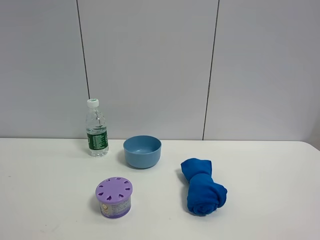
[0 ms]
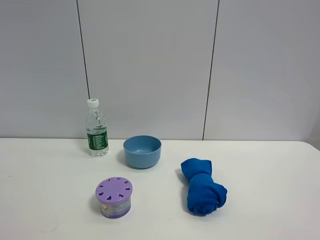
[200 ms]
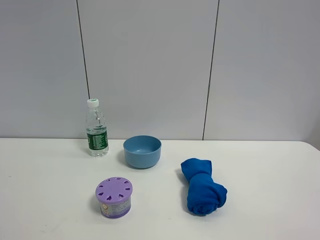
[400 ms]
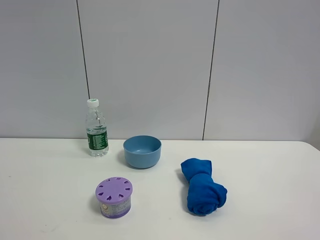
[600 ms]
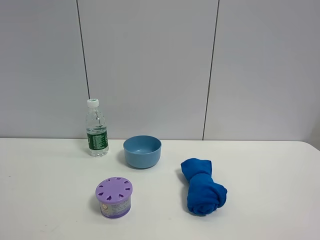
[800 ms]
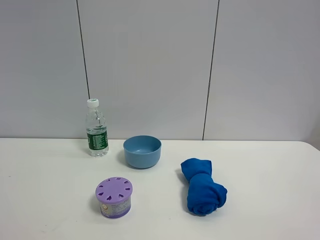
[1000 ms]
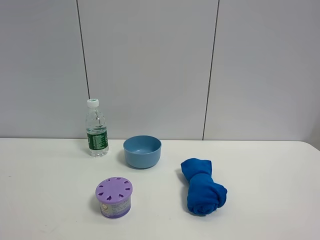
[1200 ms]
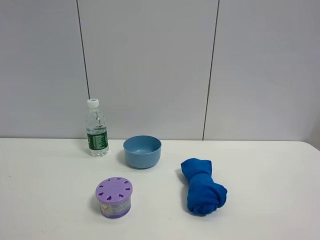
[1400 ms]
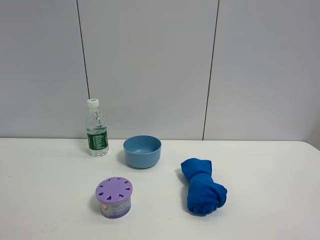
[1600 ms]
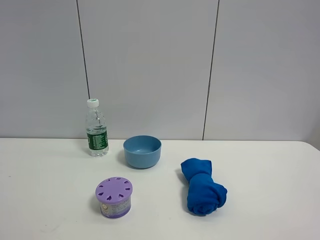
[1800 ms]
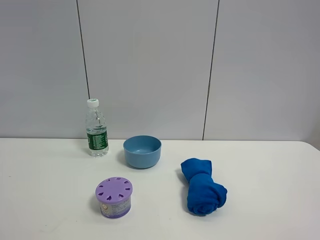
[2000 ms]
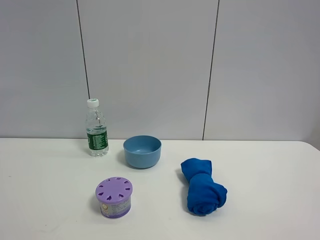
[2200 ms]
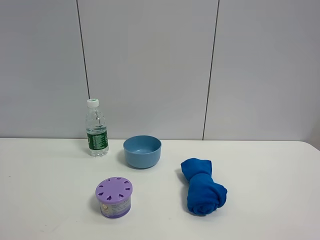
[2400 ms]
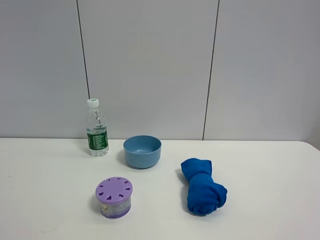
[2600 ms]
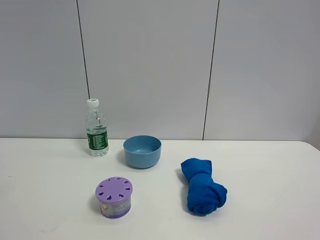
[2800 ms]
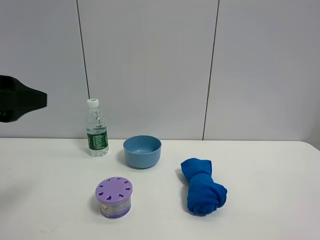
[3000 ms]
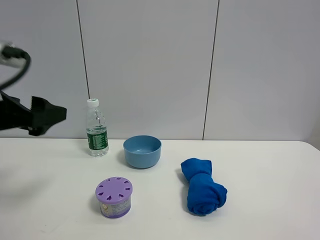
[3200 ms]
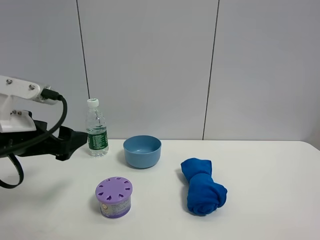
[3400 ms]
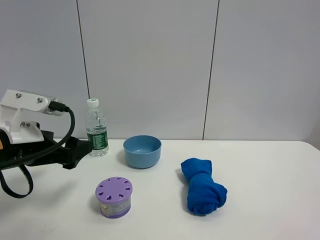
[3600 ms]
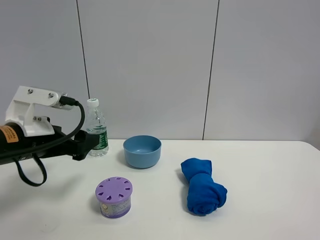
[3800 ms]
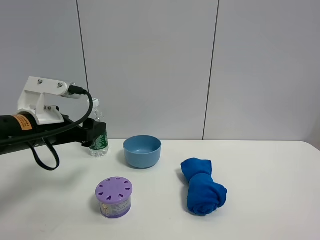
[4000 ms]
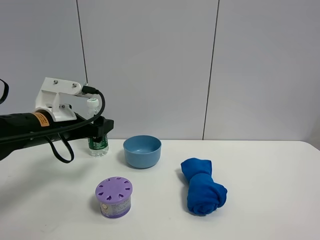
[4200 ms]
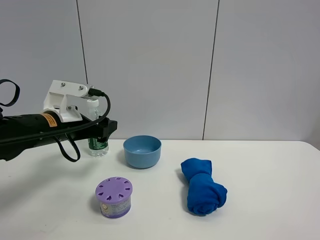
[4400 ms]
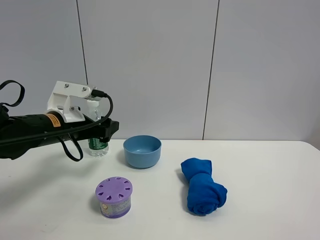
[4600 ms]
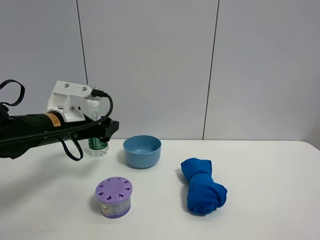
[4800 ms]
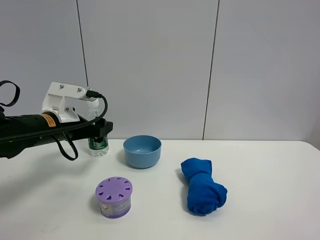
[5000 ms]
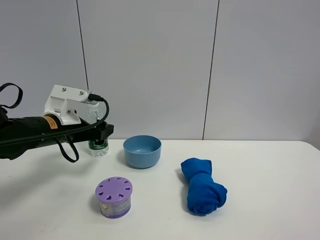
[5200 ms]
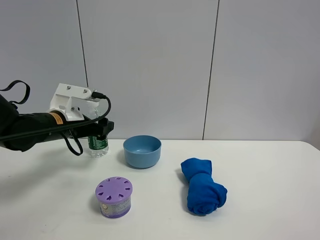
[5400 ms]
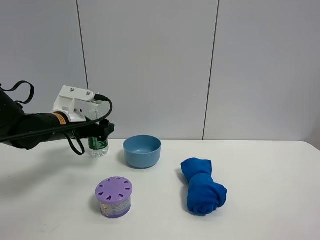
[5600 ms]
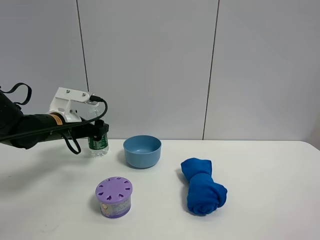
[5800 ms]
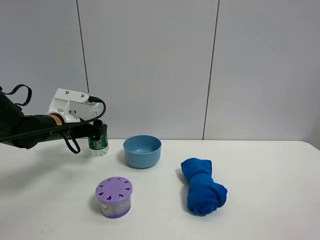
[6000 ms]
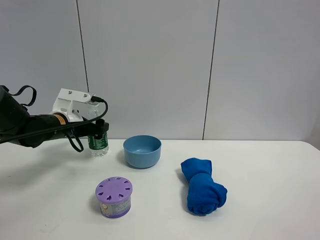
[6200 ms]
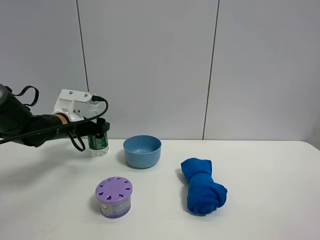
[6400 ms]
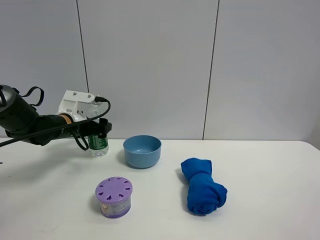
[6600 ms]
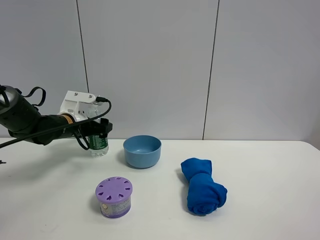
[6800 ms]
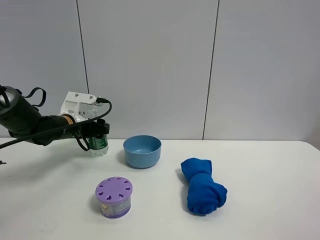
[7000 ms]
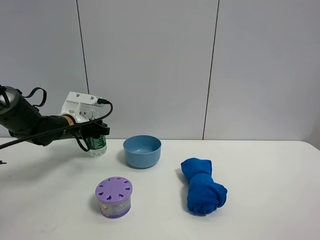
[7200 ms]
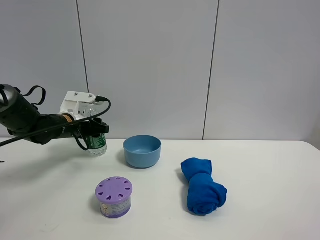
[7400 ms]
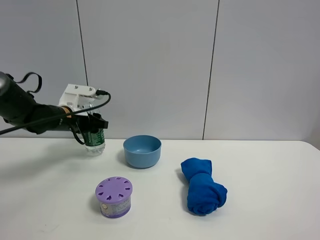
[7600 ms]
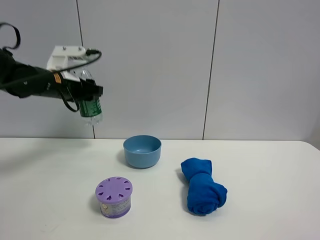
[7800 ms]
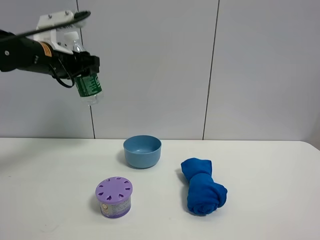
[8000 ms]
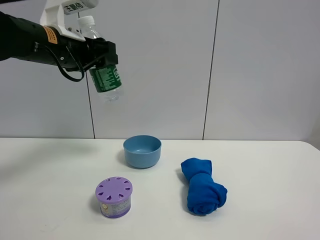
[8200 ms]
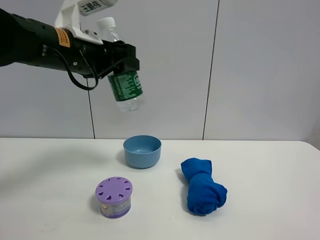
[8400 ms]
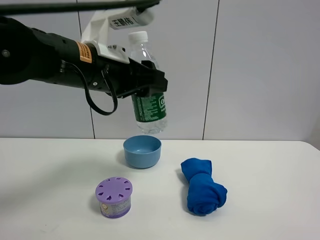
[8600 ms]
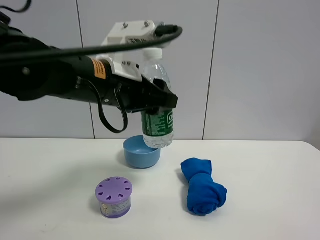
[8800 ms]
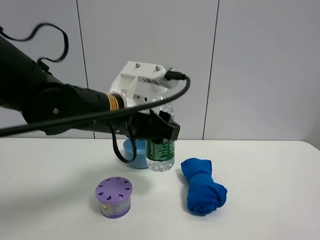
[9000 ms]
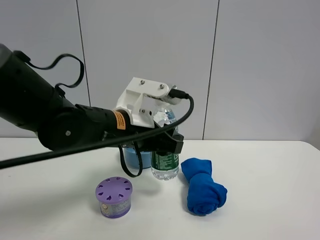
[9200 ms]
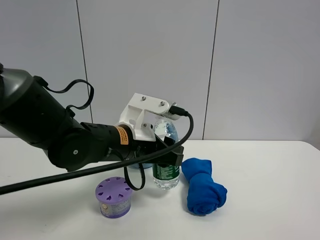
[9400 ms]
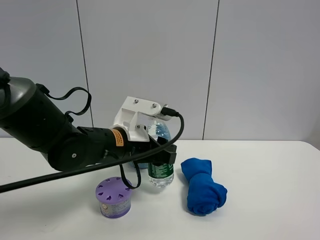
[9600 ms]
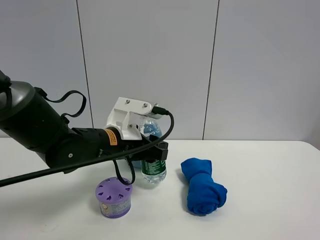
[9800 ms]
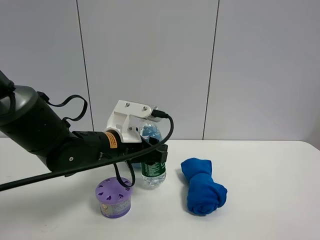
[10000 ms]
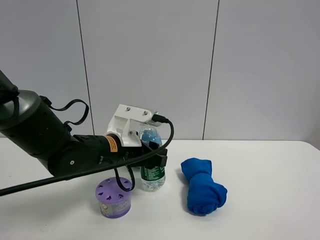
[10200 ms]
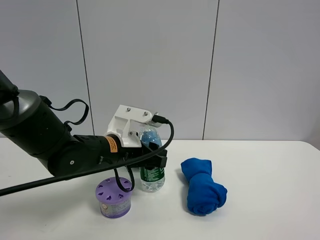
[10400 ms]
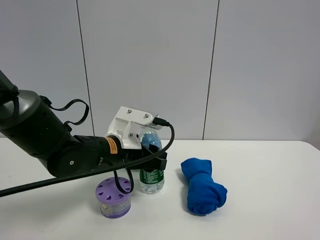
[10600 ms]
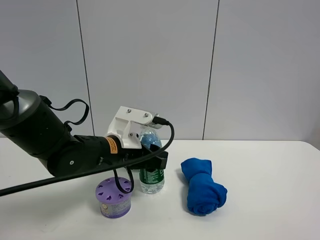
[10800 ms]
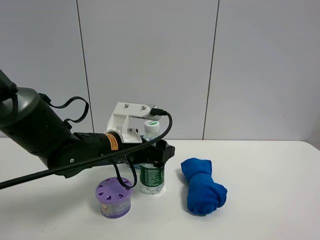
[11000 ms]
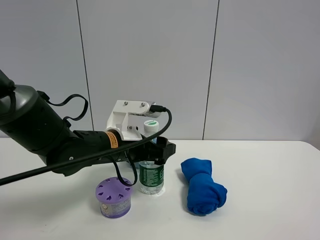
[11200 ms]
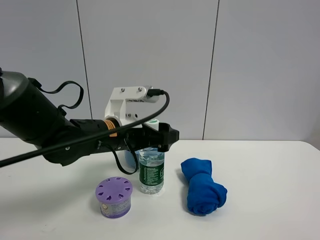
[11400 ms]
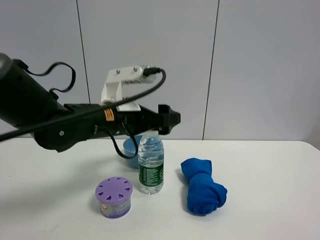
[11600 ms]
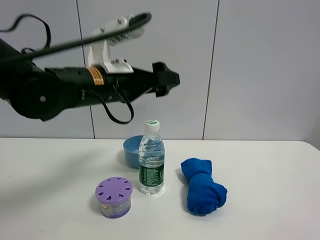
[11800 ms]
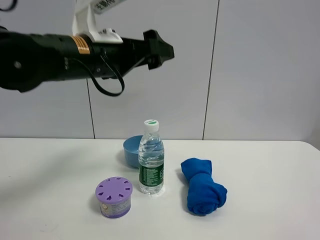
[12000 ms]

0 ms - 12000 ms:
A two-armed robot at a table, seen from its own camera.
Task of the whole recording: the gripper move the object.
Step, 0 ms - 7400 ms: Grasp the YiBao mineral water with the left gripper.
Step, 7600 ms - 10800 ms: Place the YiBao mineral water on the table with the left gripper.
1600 ms - 3000 ms: The left gripper moves forward, some 20 cm.
3000 ms - 4400 ms: The left gripper heads forward and downward, covering some 20 cm.
4400 ms - 6000 ms: The left gripper is displaced forward by about 5 cm.
6000 ms - 7600 ms: The left gripper closes.
7600 ms - 9000 ms: The left gripper moves to the right and backward, roughly 20 cm.
9000 ms - 10400 ms: The left gripper moves downward, approximately 10 cm.
10400 ms - 12000 ms: The left gripper is displaced upward by about 15 cm, and opens up.

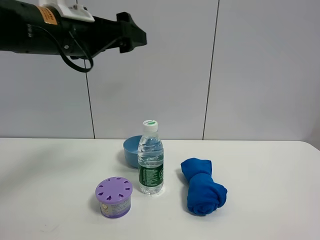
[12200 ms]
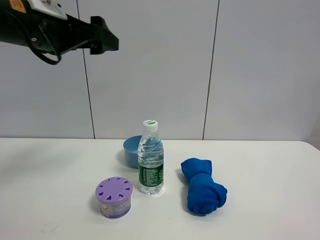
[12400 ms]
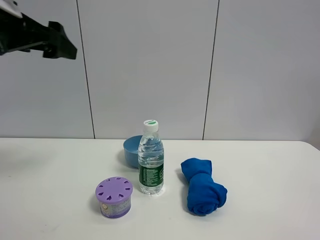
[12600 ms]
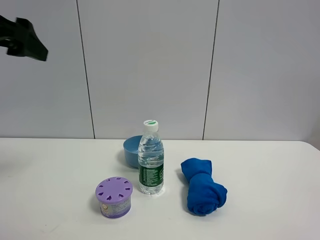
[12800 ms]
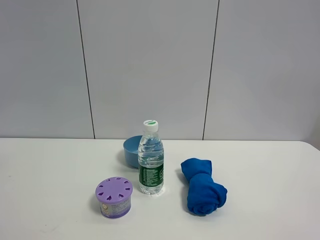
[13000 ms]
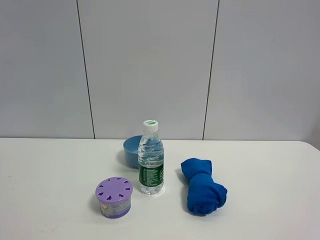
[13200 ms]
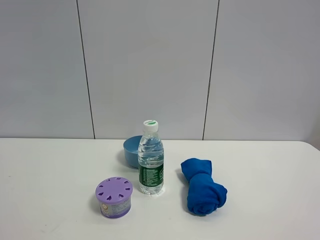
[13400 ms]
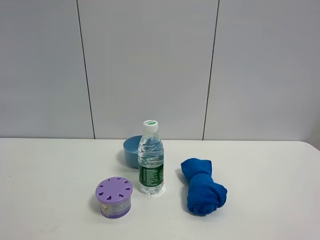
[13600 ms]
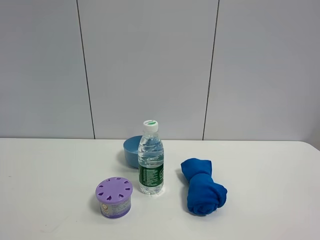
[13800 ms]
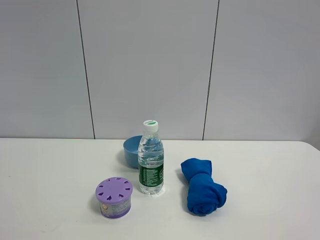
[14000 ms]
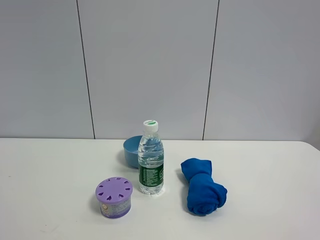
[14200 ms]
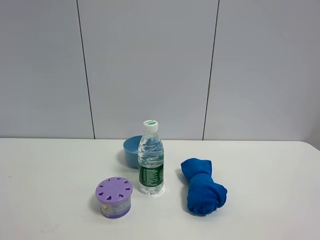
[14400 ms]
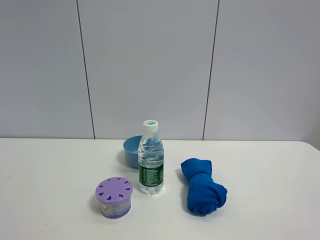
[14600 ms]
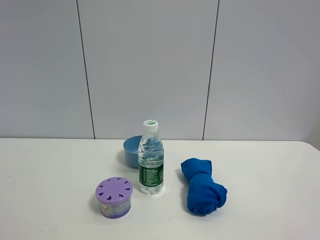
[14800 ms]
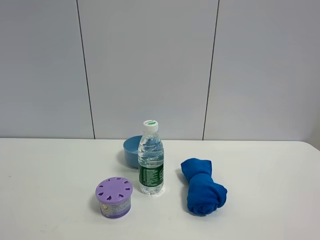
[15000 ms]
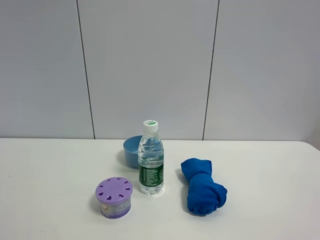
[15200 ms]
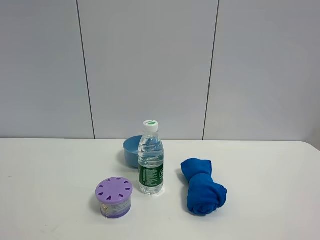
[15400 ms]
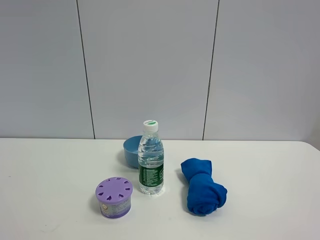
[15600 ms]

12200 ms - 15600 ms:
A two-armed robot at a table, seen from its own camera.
Task of the whole recording: the gripper move the object.
12200 ms - 13800 ms: The left gripper is displaced backward and to the left by some 35 cm.

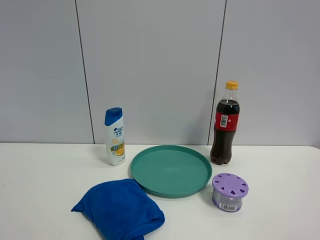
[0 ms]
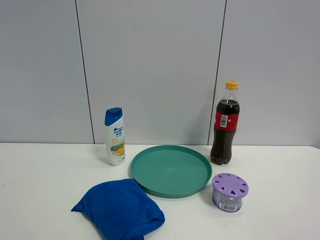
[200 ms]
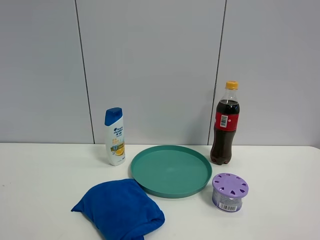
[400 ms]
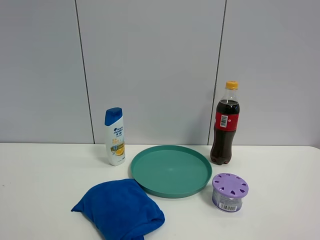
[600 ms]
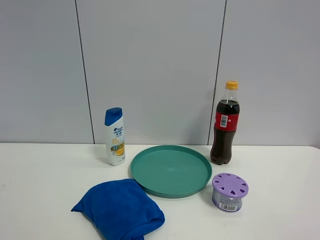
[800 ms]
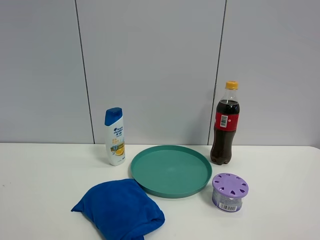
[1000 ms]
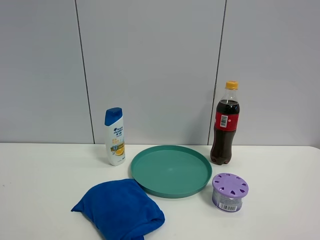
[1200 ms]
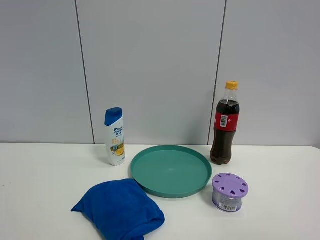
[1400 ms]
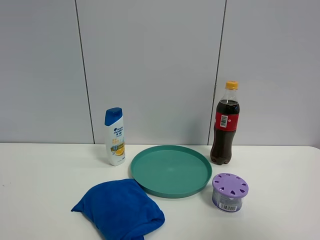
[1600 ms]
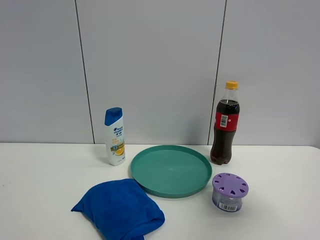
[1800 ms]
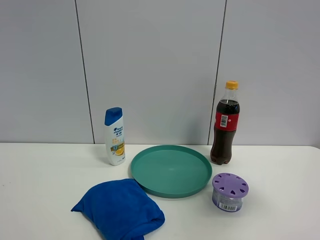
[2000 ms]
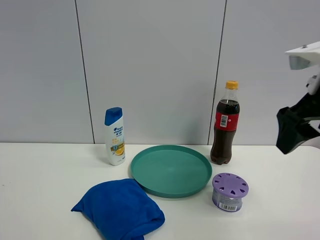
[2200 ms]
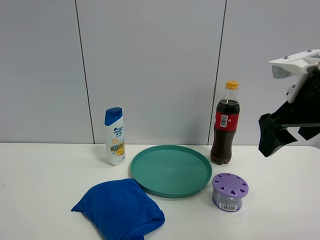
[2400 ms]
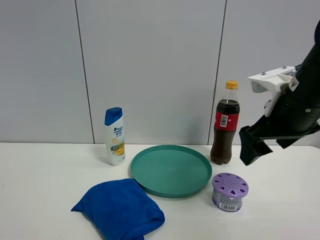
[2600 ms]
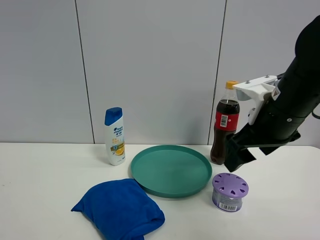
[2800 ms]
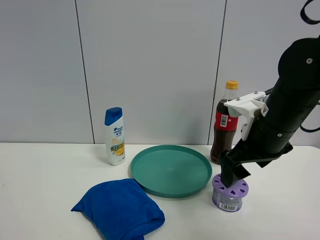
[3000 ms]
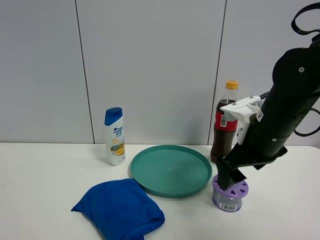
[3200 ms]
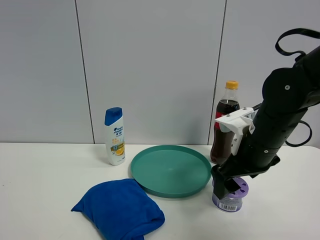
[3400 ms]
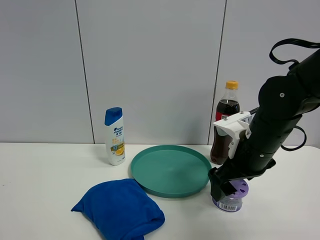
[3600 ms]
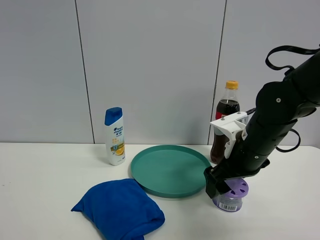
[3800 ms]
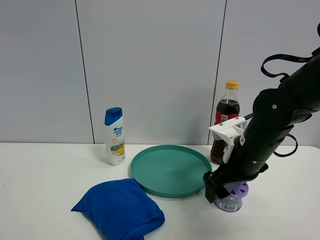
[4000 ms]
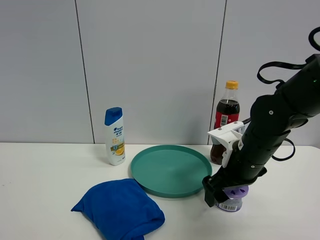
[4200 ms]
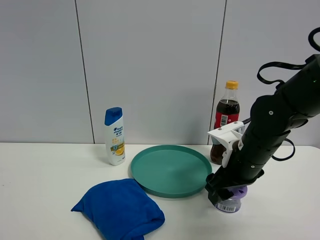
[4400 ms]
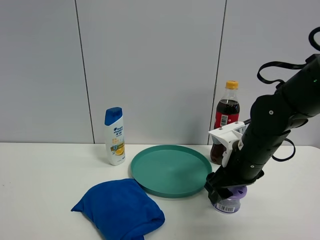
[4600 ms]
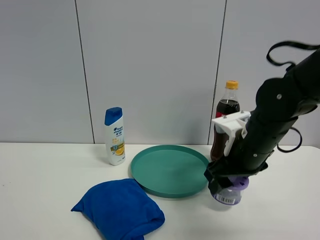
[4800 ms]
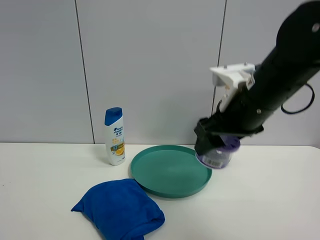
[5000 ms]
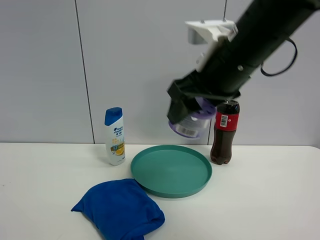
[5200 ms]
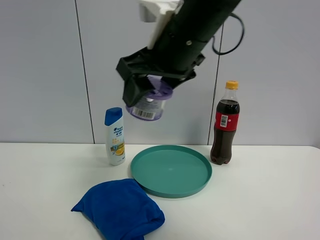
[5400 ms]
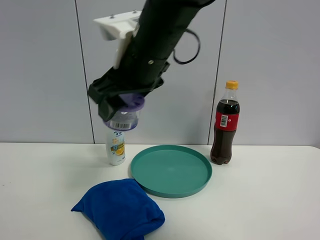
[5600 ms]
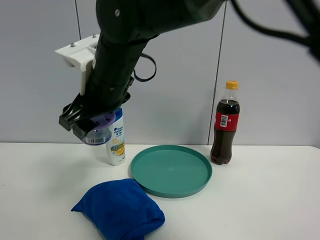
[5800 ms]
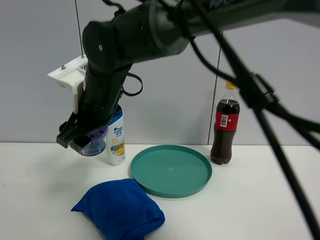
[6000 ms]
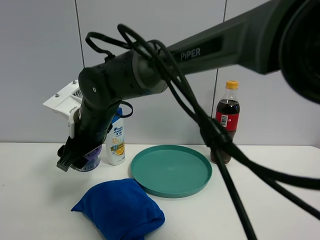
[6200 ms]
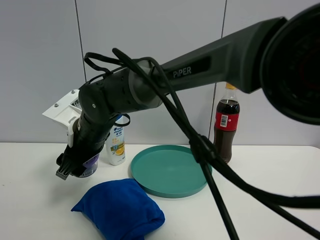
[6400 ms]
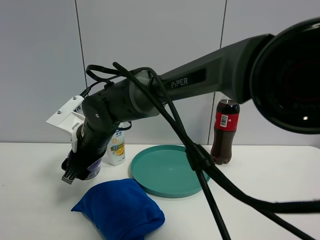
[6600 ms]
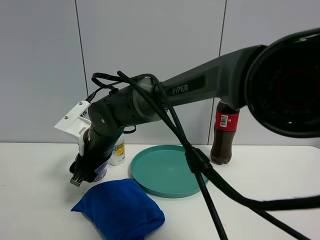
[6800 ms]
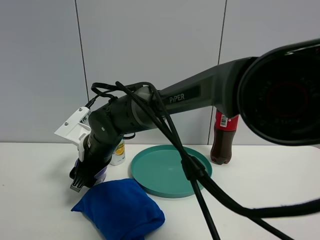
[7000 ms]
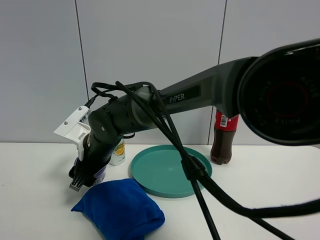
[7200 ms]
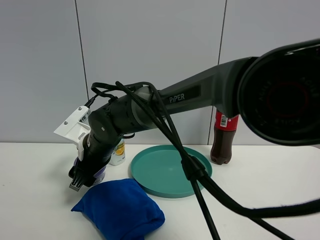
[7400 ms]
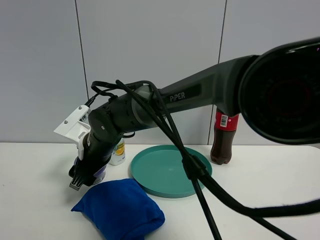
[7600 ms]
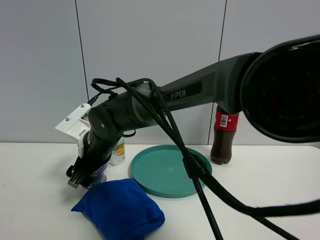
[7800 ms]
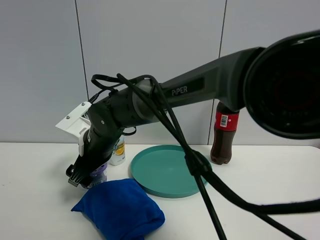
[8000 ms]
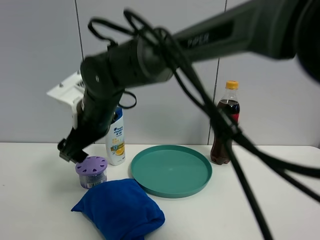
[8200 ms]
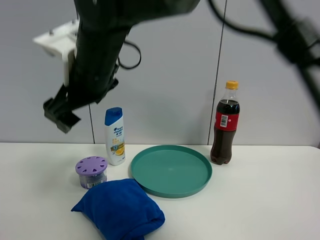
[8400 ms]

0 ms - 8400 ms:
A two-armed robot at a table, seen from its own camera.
Task of the whole recording: the gripper move the object.
Step, 0 ms - 4400 ms: Grasp the Incense box with the right gripper.
Step, 4600 ms - 8000 ms: Place the Incense box on the table with the right gripper.
1400 ms - 2800 ms: The right gripper heads forward, downward and to the left, covering roughly 30 cm, and opens.
2800 ms - 4200 ms: The right gripper shifts about 10 cm downward.
4200 ms - 5600 ms: The right gripper travels to the left and upward by about 25 cm, and closes up.
5600 ms - 7000 ms: The right gripper shifts roughly 20 cm downward and to the left.
7000 ms - 8400 ms: The right gripper is displaced upward by some 20 cm, and opens.
